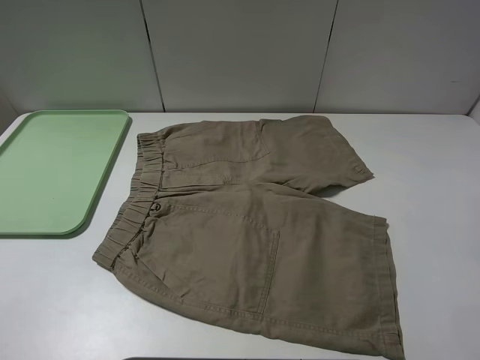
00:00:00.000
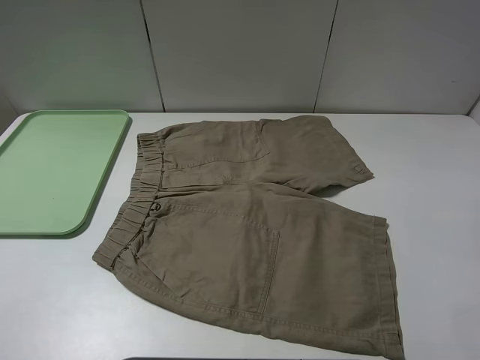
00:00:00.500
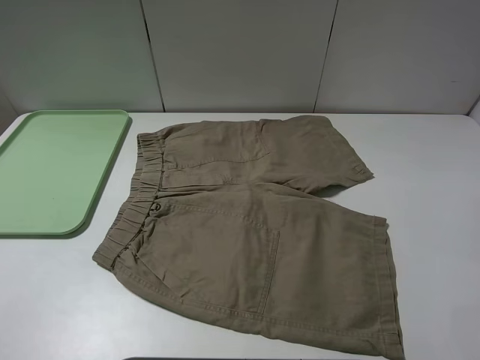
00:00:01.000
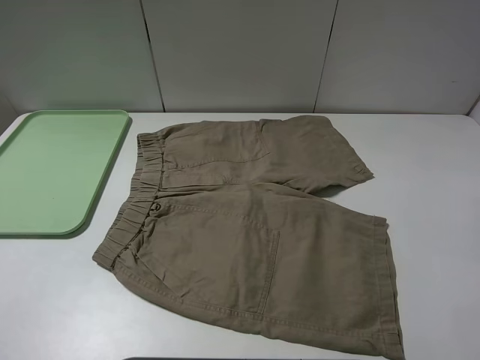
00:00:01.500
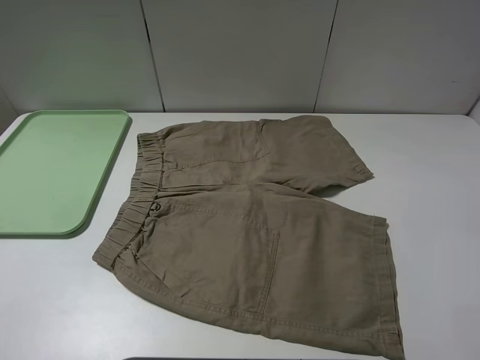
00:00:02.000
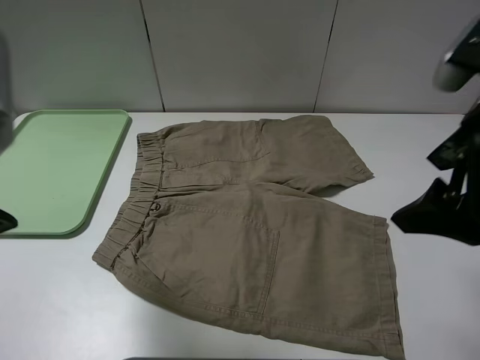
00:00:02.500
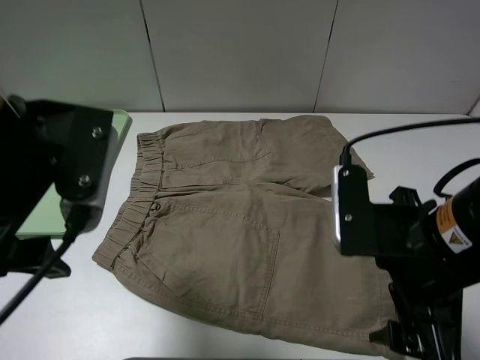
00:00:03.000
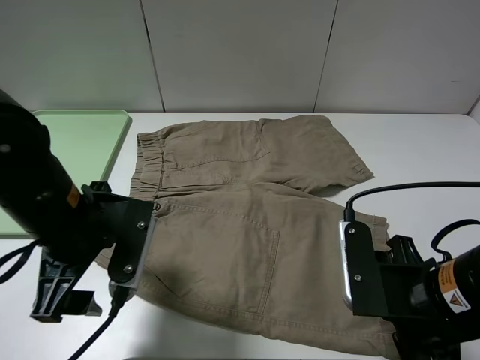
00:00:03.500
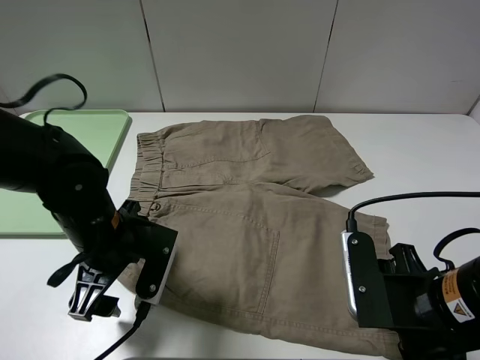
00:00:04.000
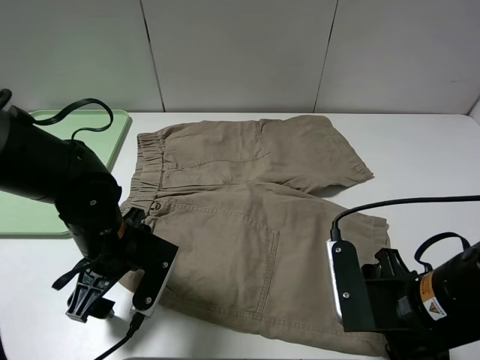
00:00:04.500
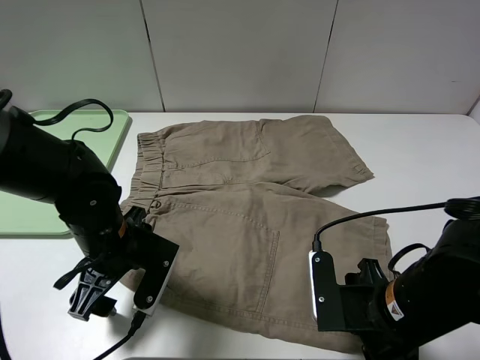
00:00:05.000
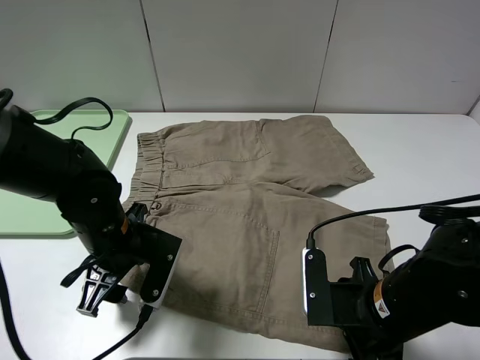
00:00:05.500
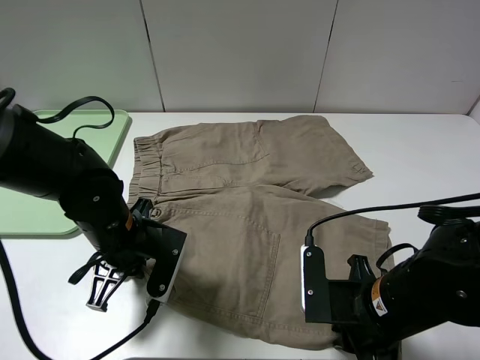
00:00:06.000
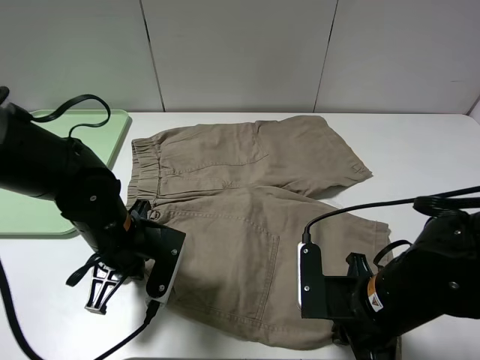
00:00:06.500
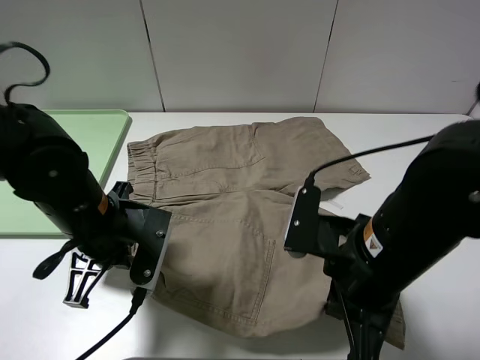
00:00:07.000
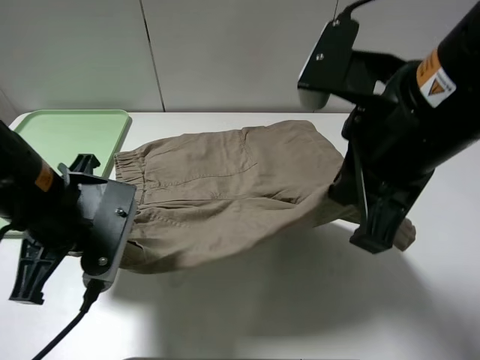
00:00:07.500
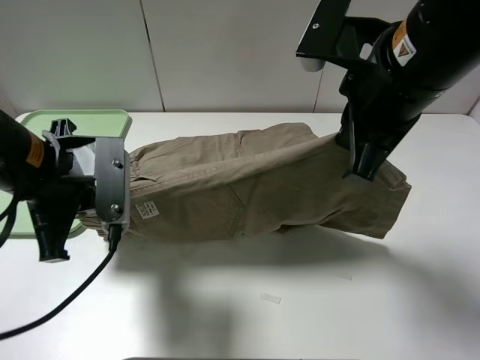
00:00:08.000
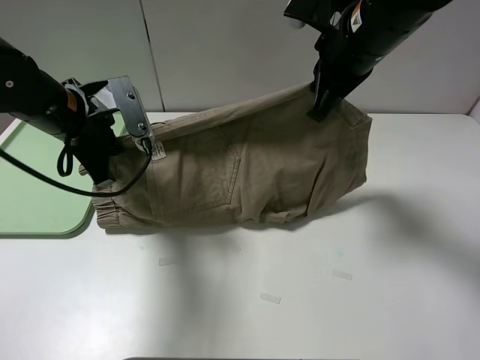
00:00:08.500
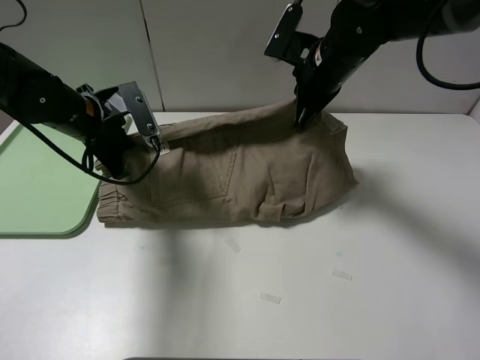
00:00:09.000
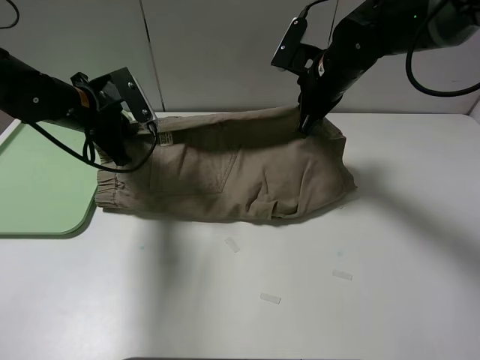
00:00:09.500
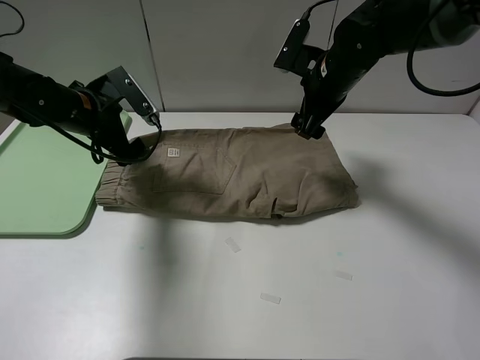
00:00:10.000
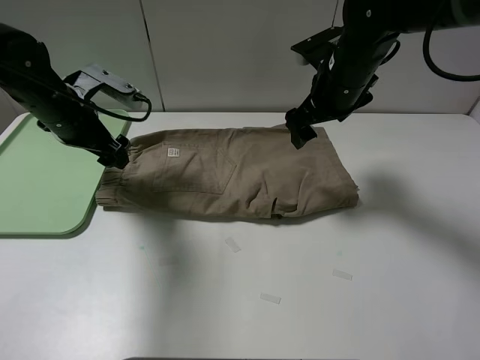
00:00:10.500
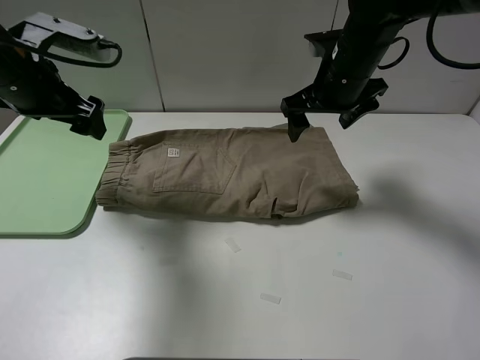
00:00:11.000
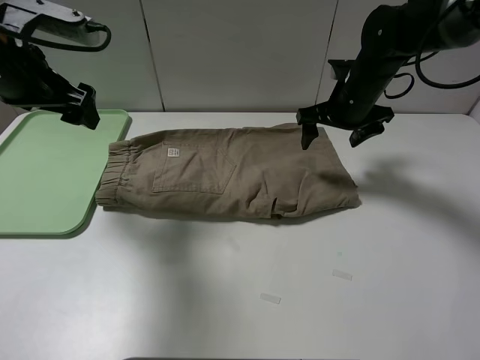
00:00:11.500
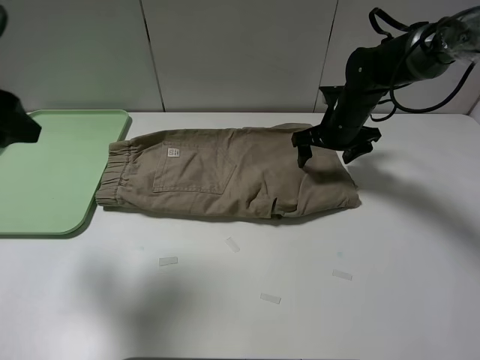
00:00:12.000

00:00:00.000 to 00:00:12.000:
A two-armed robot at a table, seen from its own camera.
Task of the whole recording: fold the khaki jeans in half with two grippers, then fold them in half again, and use the left claw to place the folded fold khaki jeans on the tray.
Step, 00:00:00.000 to 00:00:06.000: Grasp the khaki trousers with the left gripper.
Step, 00:00:06.500 to 00:00:09.500: Fold the khaki trousers upwards with the left gripper.
00:00:02.000 to 00:00:04.000: The left gripper is displaced downward, forward and to the right by some 30 cm. The right gripper travels downward and to the left by some 20 cm.
00:00:04.000 to 00:00:06.000: The right gripper is displaced downward by approximately 5 cm, and closes. The left gripper closes.
00:00:06.000 to 00:00:08.000: The right gripper is displaced upward and forward by about 25 cm; the left gripper travels upward by approximately 10 cm.
00:00:08.000 to 00:00:10.000: The right gripper shifts about 20 cm forward and downward, and opens up. The left gripper goes roughly 15 cm forward, and opens.
00:00:10.000 to 00:00:12.000: The left gripper goes some 20 cm backward and upward, while the right gripper travels downward by about 10 cm.

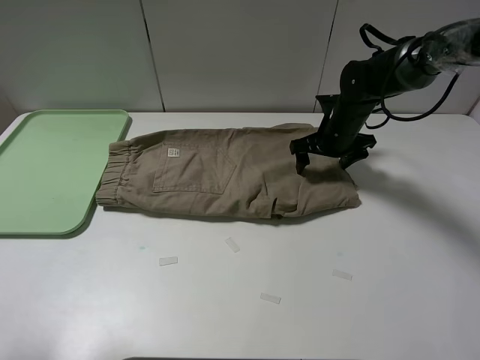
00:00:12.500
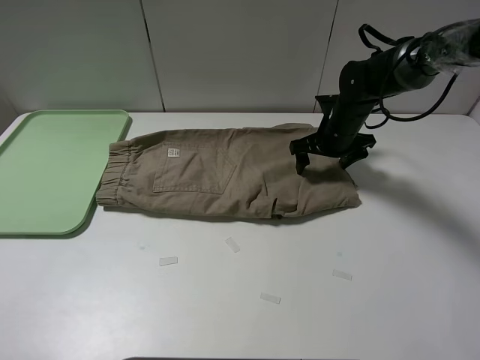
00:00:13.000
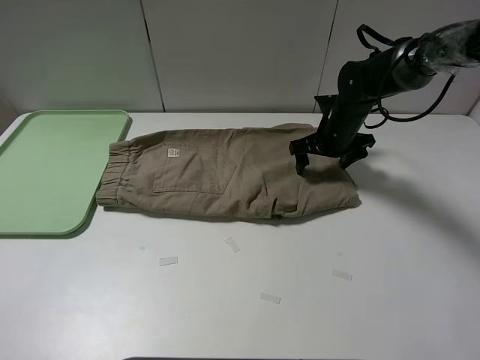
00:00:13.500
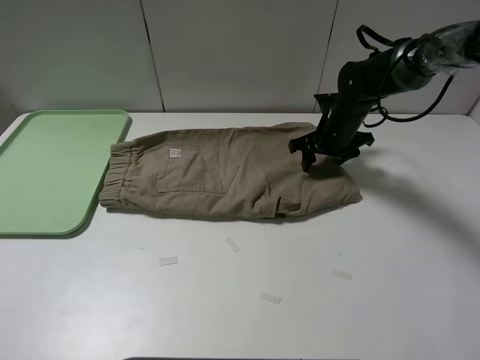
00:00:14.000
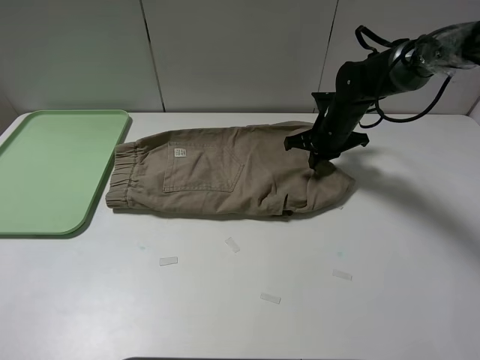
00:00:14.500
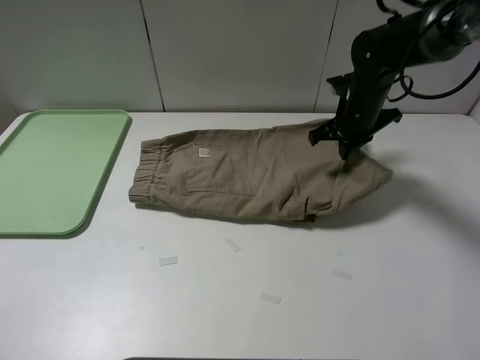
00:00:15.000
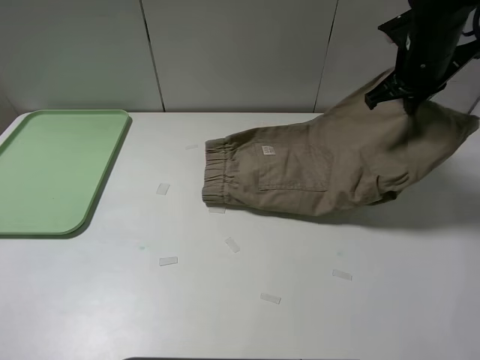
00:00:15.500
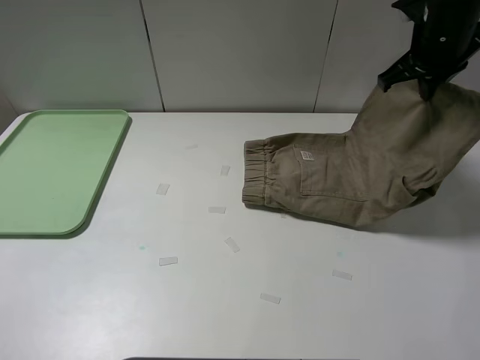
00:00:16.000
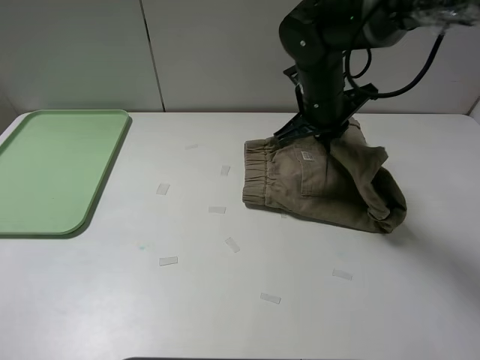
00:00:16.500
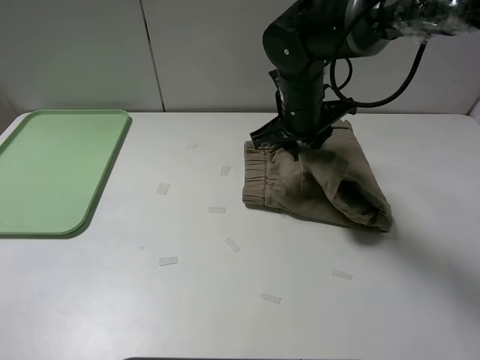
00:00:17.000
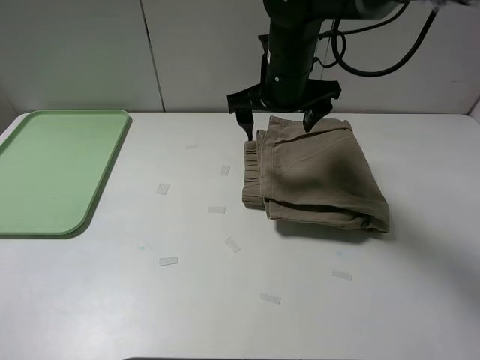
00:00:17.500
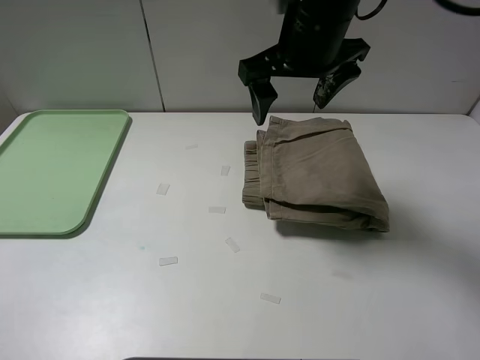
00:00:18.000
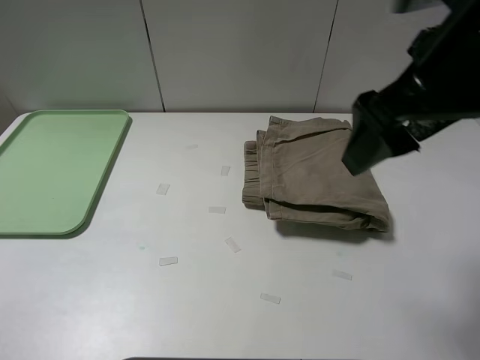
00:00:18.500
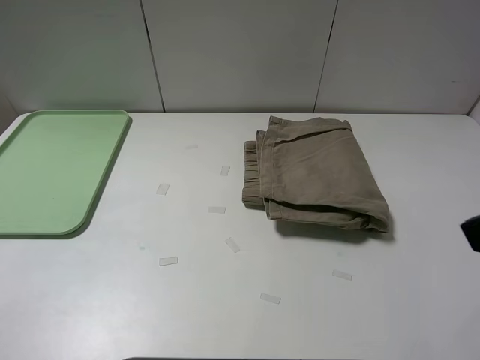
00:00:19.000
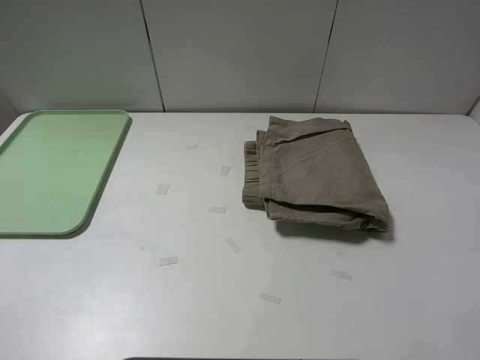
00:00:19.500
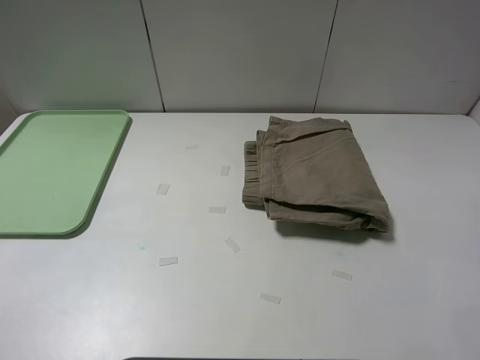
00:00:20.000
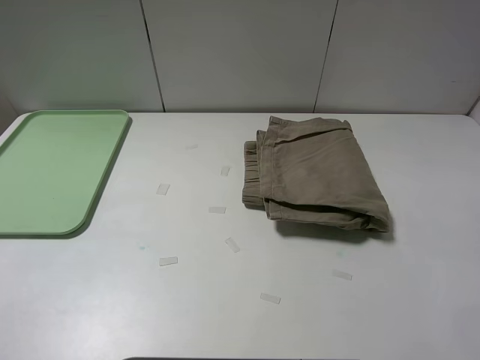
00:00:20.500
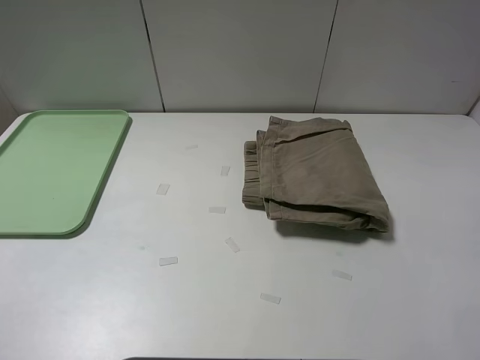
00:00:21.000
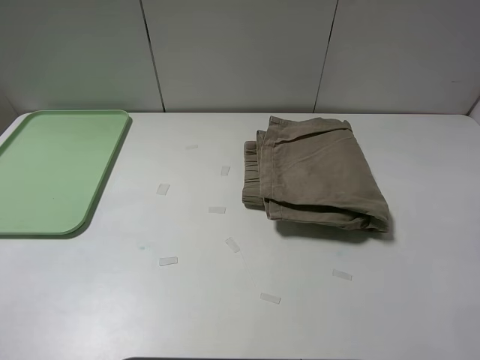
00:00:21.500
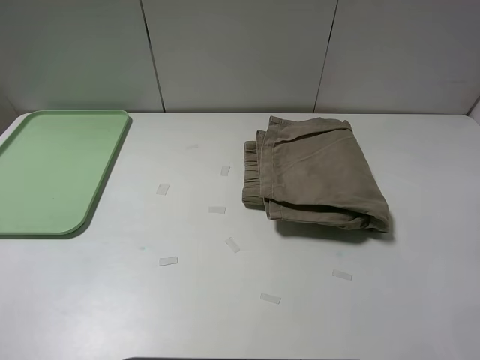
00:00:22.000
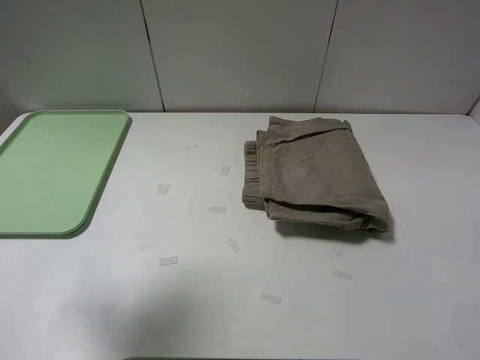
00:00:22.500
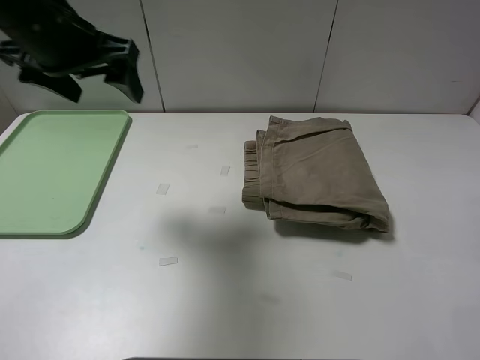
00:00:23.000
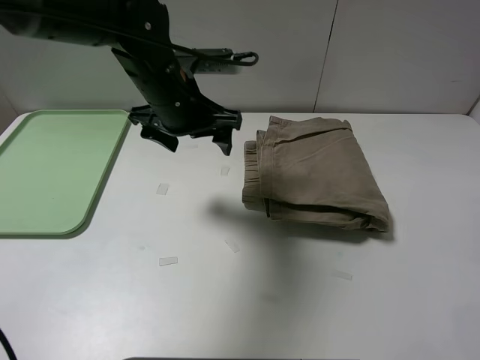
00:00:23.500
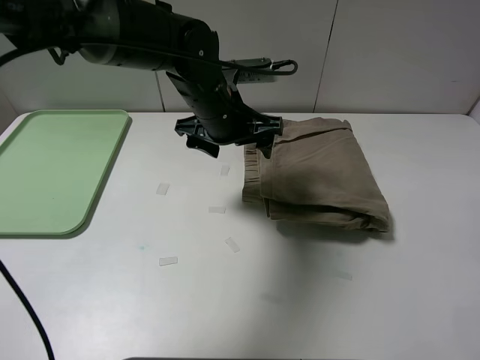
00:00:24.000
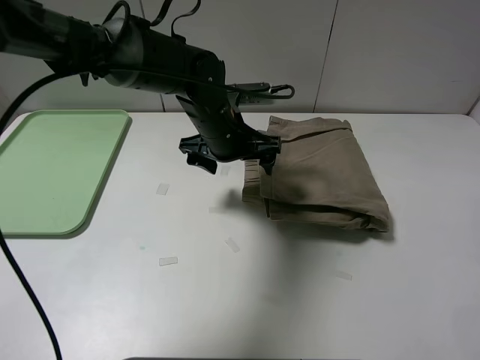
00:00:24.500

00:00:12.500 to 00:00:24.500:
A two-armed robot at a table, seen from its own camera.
Task of the whole recording: fold the khaki jeans in half with two grippers, then fold them in half again, and use the left claw to place the folded fold khaki jeans on the tray.
Step, 00:00:14.500 to 00:00:17.000: Fold the khaki trousers from right to left with the right gripper.
00:00:12.500 to 00:00:14.500: The right gripper closes; the left gripper shifts approximately 5 cm backward.
00:00:14.500 to 00:00:16.500: The right gripper moves upward, to the left and backward, about 15 cm.
00:00:16.500 to 00:00:18.500: The right gripper moves backward and upward, some 25 cm, and opens up.
00:00:18.500 to 00:00:20.500: The right gripper is displaced backward and to the right by about 20 cm.
00:00:20.500 to 00:00:22.500: The left gripper heads forward and upward, covering approximately 25 cm.
00:00:22.500 to 00:00:24.500: The left gripper heads to the right, downward and forward, covering roughly 40 cm.

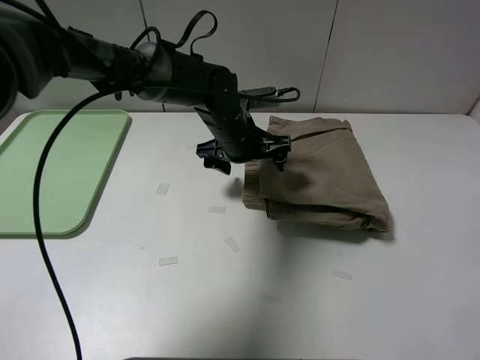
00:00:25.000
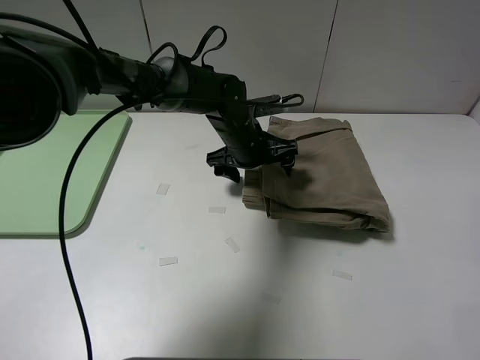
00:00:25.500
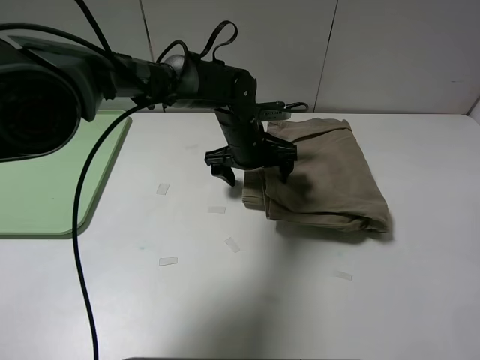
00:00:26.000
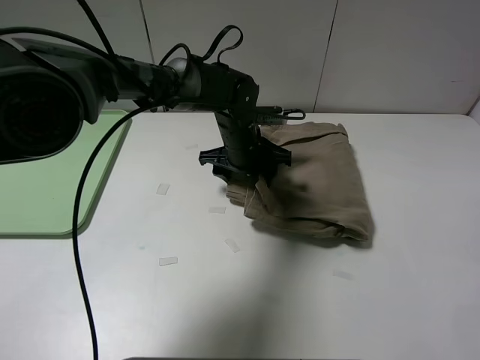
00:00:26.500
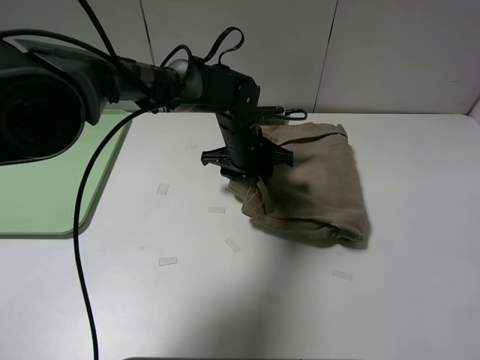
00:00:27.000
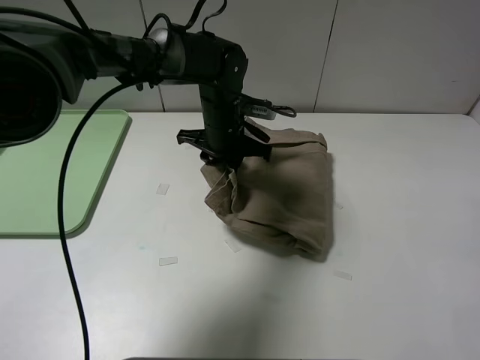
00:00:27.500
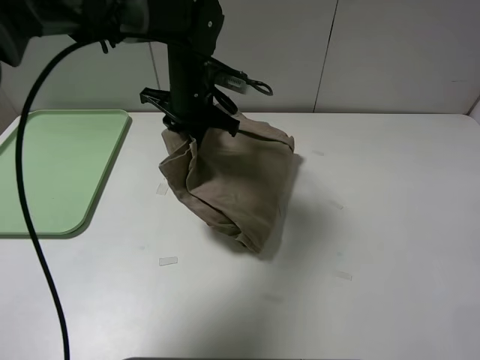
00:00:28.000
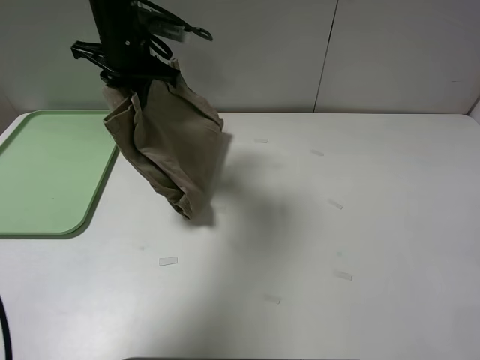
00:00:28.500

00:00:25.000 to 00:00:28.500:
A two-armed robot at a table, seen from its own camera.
Task of the whole recording: fold the khaki jeans in half with two grippers, then fold them in half again, and use the left claw to place the folded fold khaki jeans on the tray.
00:00:25.000 to 00:00:27.000: The left gripper closes its fingers.
00:00:27.000 to 00:00:28.500: The left gripper is displaced to the left and upward by approximately 25 cm.
